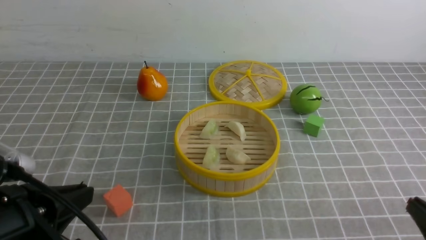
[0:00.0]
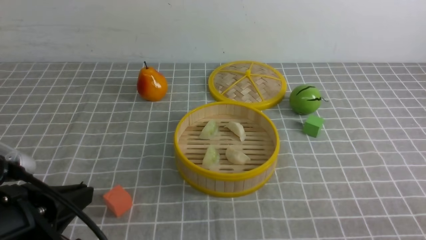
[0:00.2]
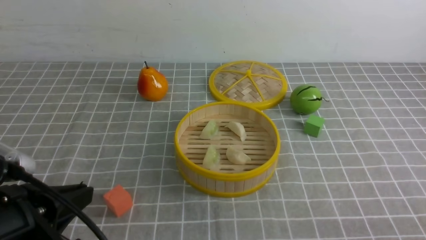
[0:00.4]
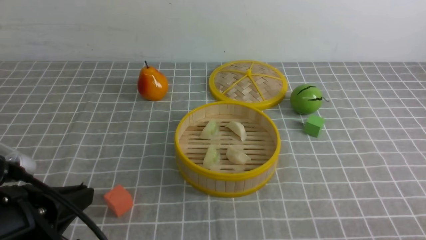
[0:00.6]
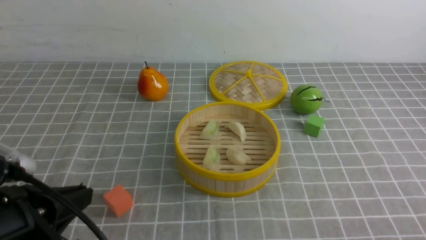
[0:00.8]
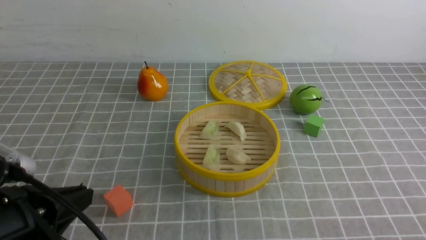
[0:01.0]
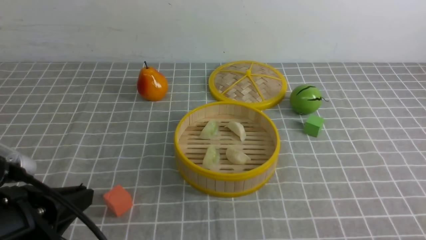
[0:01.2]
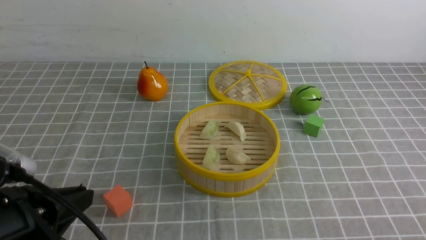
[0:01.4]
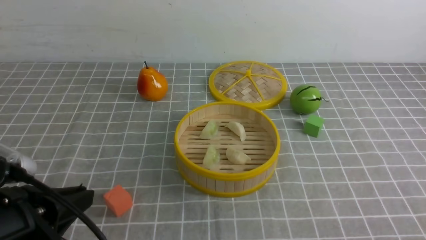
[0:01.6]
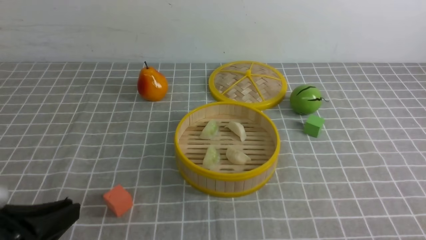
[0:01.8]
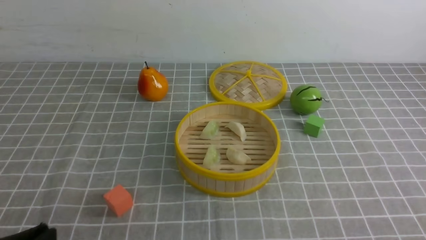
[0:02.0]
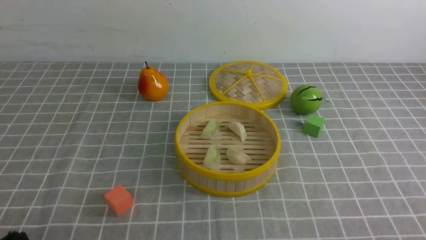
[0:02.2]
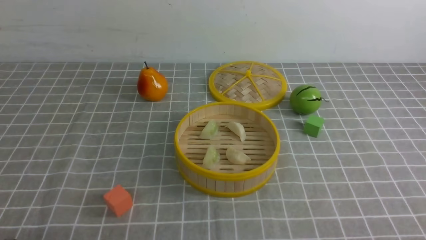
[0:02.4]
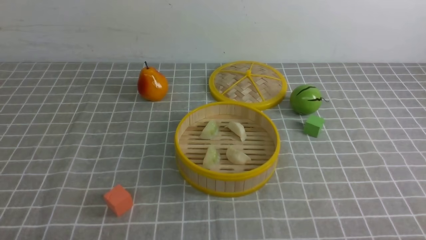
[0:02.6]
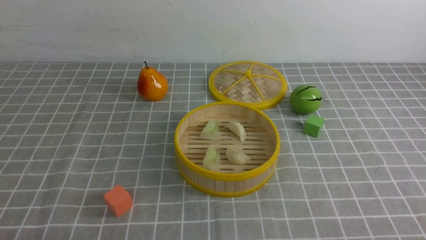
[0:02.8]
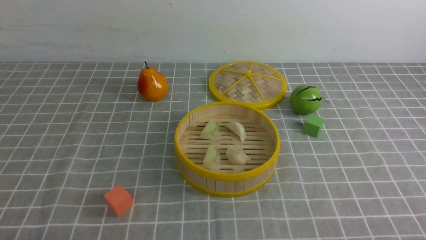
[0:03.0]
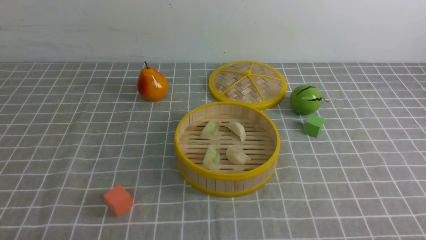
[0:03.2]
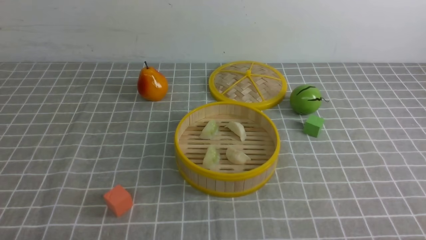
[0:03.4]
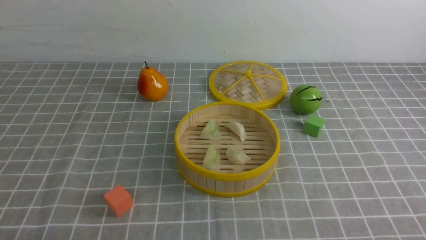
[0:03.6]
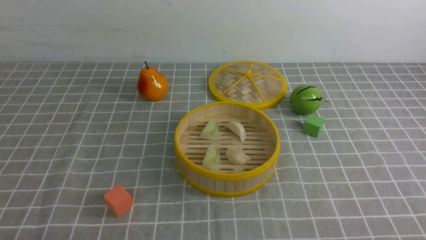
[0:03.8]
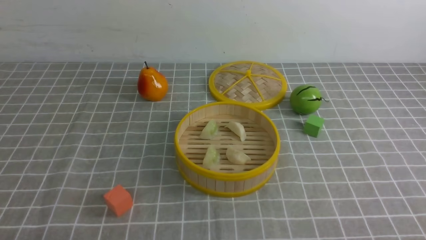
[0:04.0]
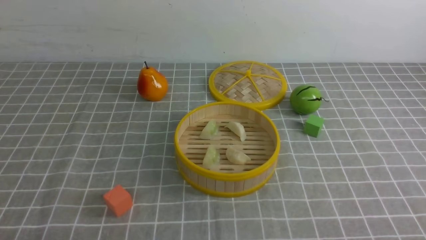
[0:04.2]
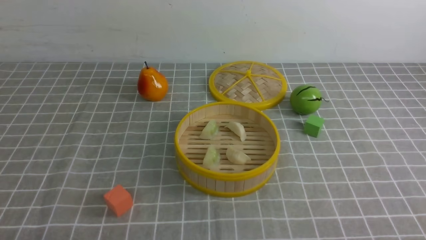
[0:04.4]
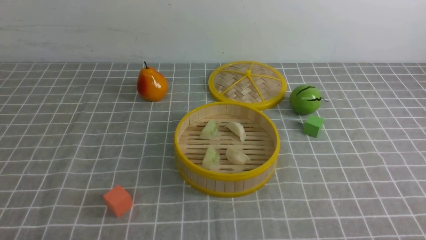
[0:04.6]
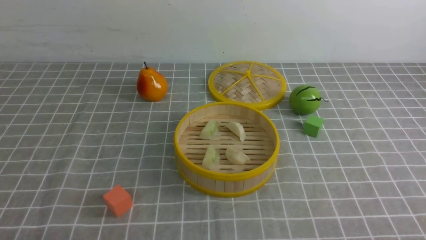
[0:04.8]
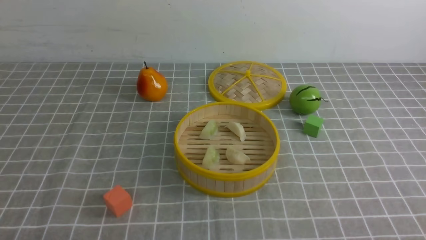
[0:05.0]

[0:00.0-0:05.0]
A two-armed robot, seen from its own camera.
Task of the whole recording: put the dumplings into the steamer on the table with the grey tablecloth.
0:01.6 to 0:03.4: The left gripper goes about 15 cm downward, backward and to the left.
0:03.4 to 0:05.0: Both grippers stay about where they are.

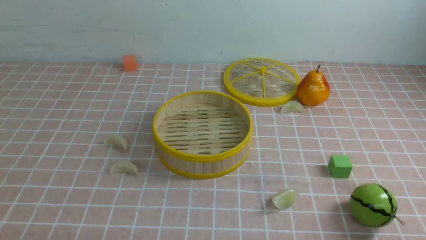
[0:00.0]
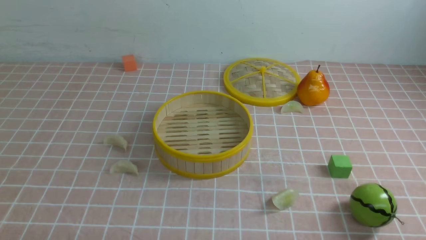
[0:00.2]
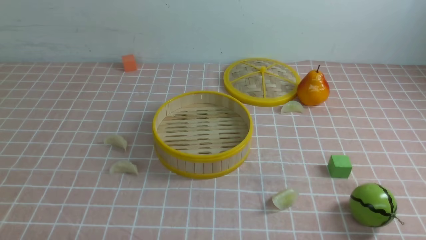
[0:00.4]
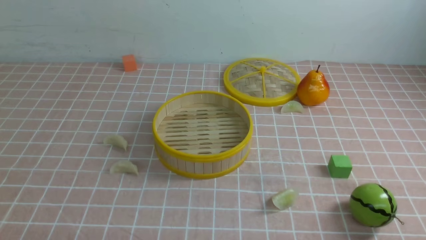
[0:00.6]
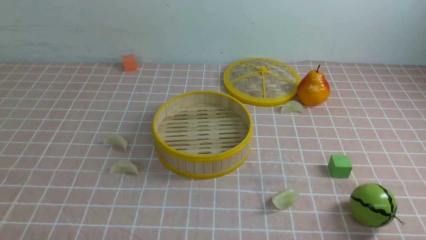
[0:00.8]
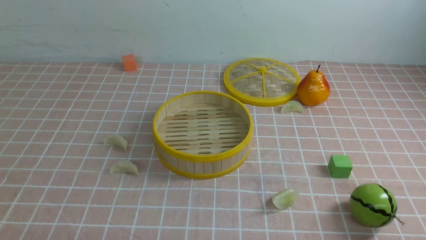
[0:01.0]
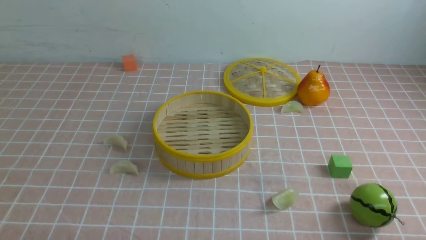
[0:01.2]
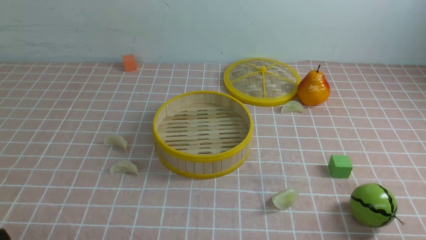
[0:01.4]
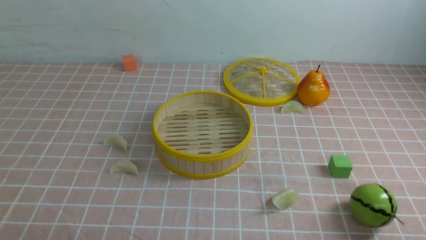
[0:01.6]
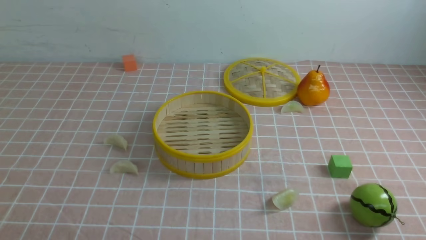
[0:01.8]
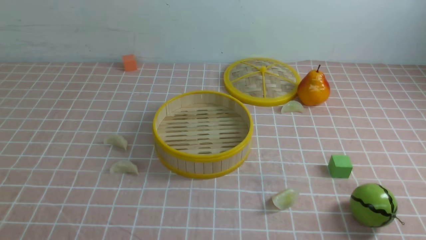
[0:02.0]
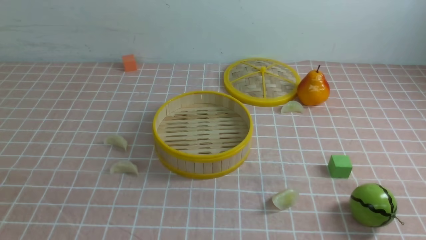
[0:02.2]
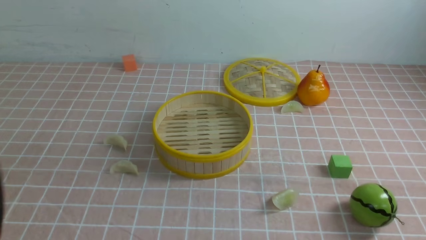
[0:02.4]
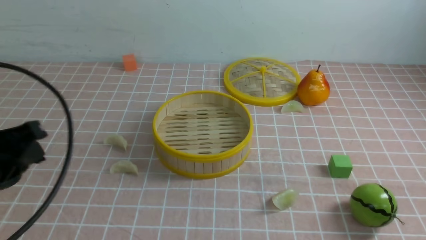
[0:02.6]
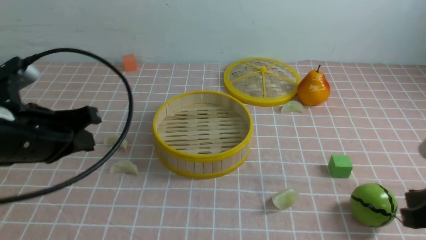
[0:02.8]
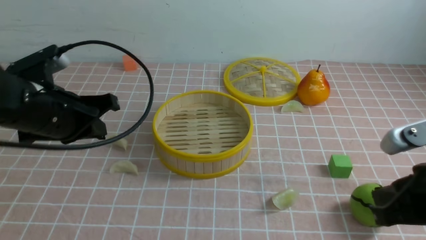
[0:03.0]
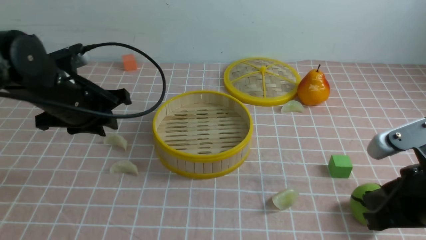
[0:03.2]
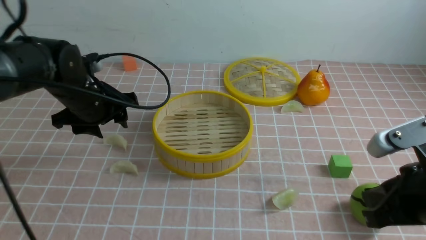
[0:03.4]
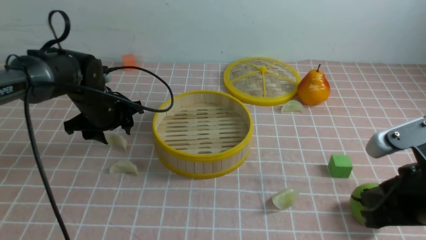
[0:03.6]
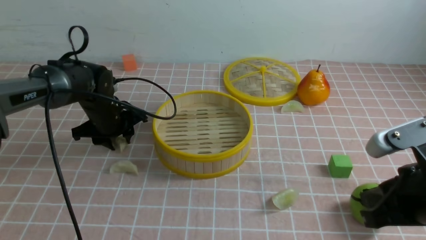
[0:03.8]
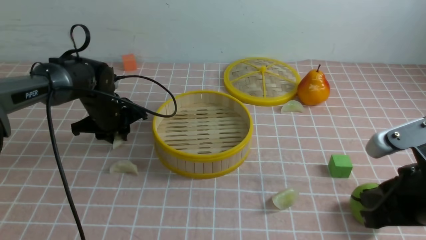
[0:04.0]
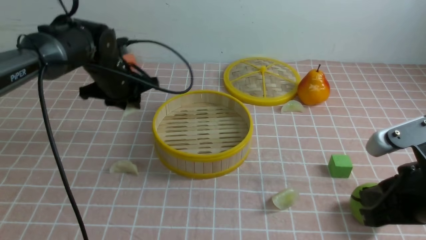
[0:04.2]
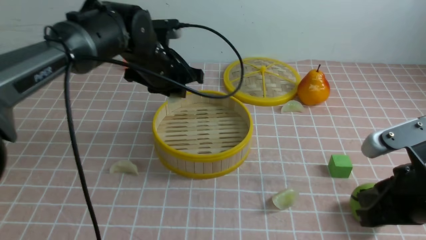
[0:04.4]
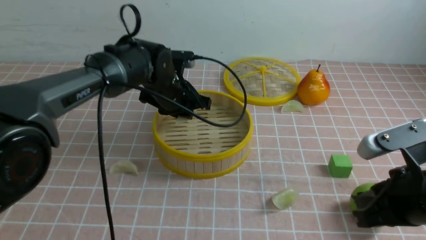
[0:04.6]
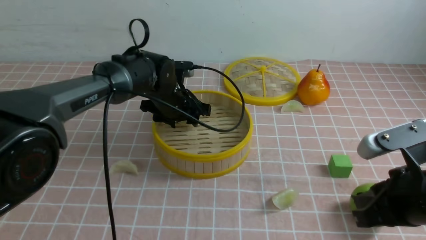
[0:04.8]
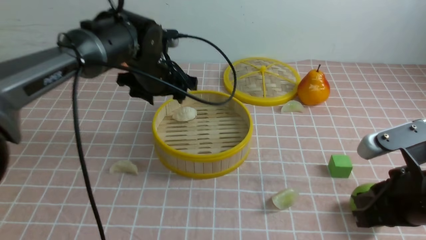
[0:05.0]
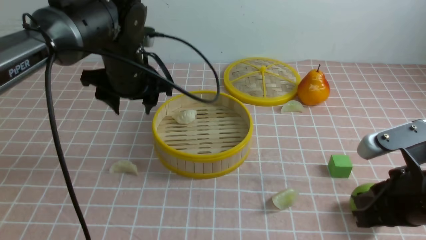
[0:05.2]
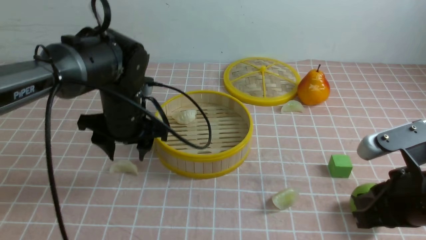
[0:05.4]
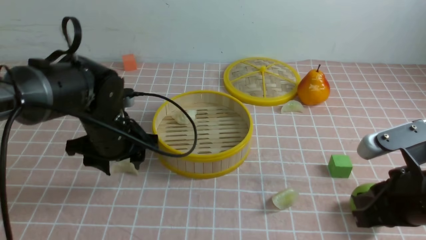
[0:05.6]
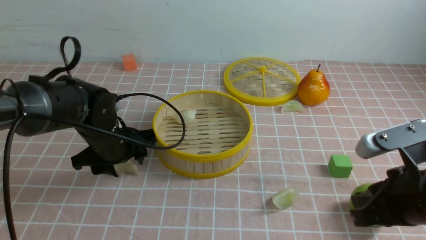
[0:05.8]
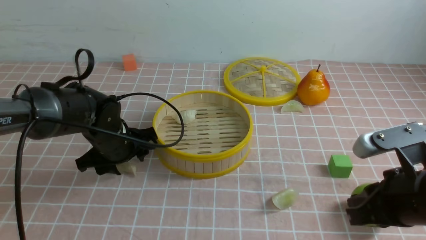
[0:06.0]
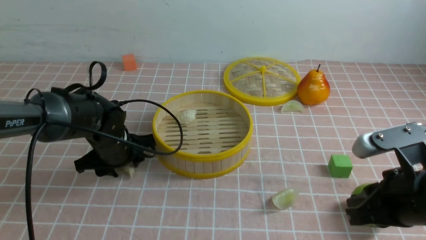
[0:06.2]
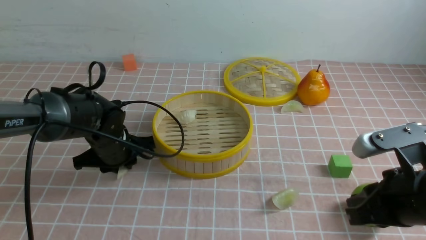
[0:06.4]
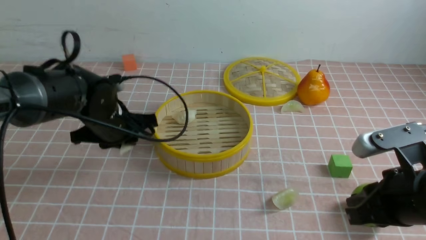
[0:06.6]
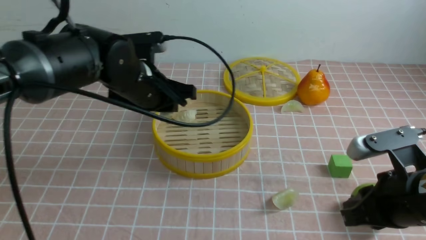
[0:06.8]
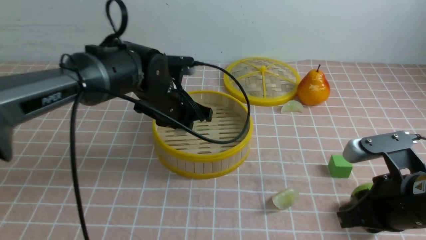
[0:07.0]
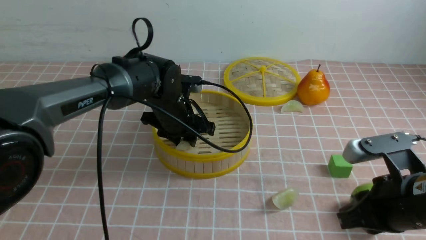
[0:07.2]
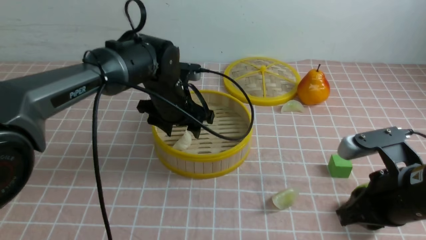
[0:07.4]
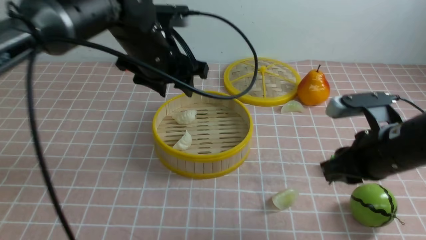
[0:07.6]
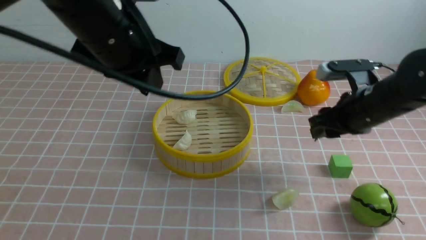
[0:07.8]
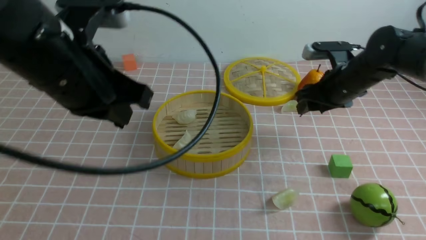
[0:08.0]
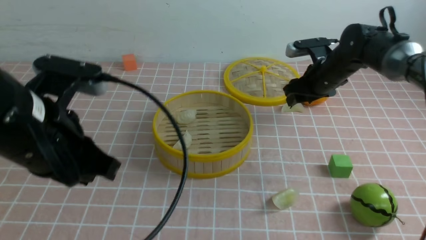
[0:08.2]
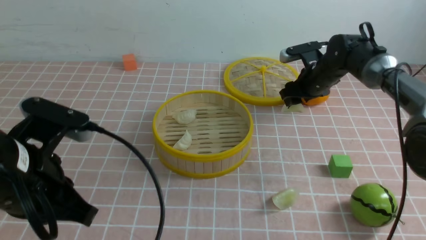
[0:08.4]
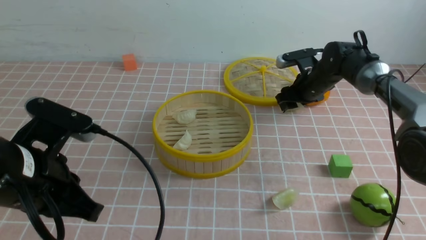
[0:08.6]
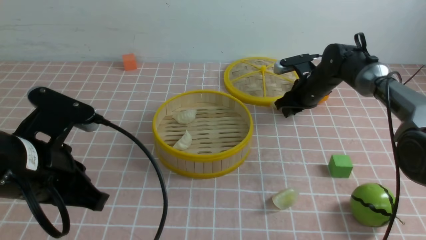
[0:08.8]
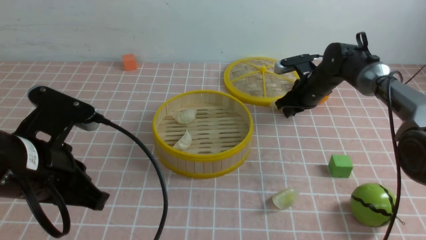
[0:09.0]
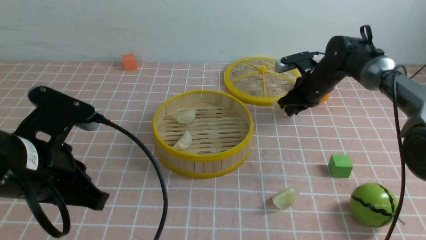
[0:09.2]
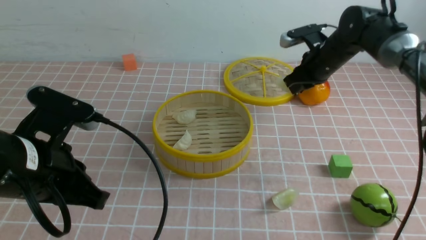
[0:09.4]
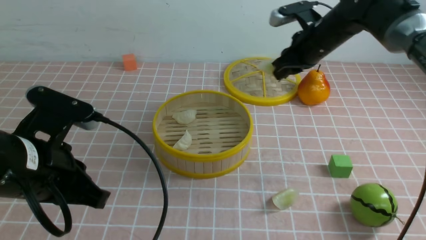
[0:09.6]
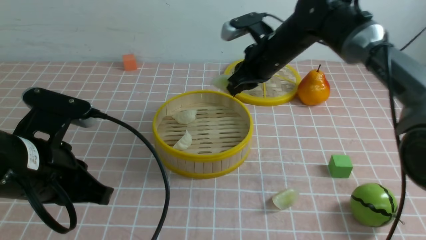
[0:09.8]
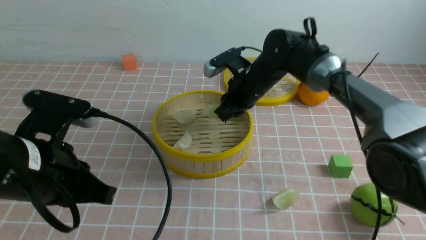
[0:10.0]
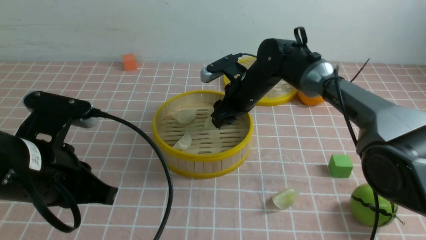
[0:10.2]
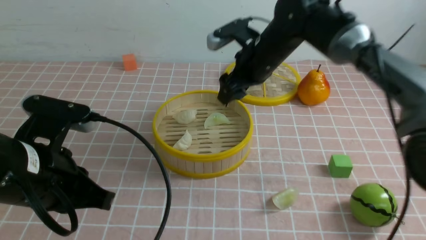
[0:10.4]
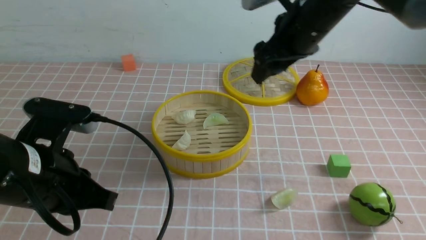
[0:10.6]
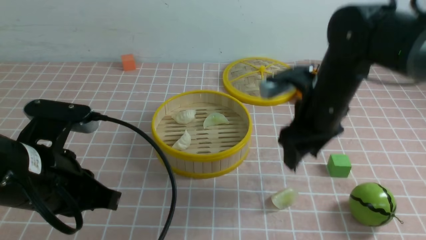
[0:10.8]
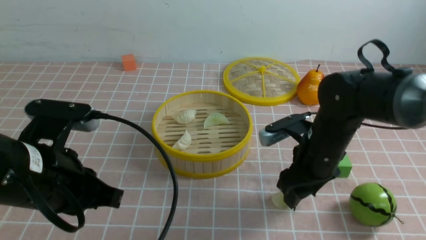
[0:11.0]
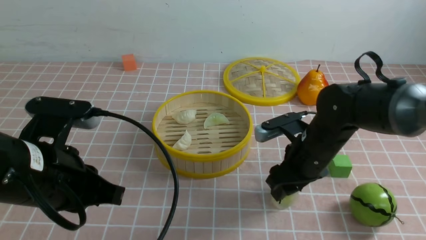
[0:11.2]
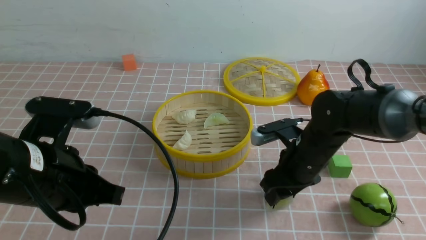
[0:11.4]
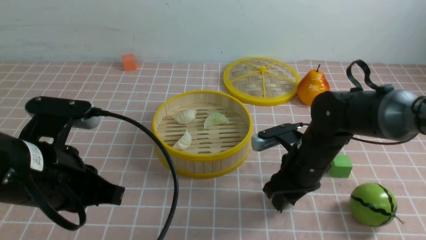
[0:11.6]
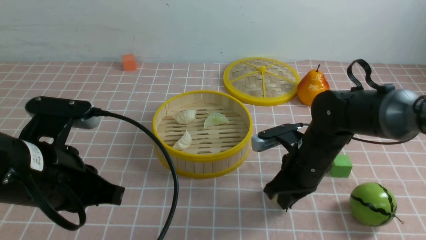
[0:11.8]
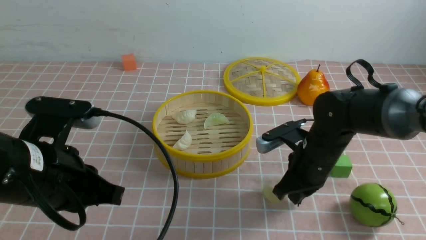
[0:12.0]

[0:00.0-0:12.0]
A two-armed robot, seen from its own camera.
Task of the whole recording: put the dumplings into the steamer on the table with the pink tablecloth.
Step, 0:00.0 to 0:04.0: use the left arm to grab a dumpling.
Step, 0:04.2 to 0:04.8: use the left arm to put the dumpling into the steamer.
Step, 0:05.0 to 0:06.4: use the left arm to grab a dumpling.
Step, 0:06.6 to 0:07.2: use the left arm to put the dumpling into the steamer.
Step, 0:07.4 to 0:09.2: use the right arm to grab a dumpling.
Step, 0:09.4 to 0:10.2: use the right arm to put the dumpling into the steamer.
0:01.6 to 0:03.0: The left gripper goes about 25 cm forward. The right gripper goes roughly 15 cm forward and to the left, and closes.
0:03.0 to 0:04.4: The left gripper heads forward and to the right, covering roughly 20 cm, and opens, then closes once more.
0:04.4 to 0:06.0: The left gripper moves backward, downward and to the left, about 15 cm, and opens up.
0:06.0 to 0:07.6: The left gripper shifts about 20 cm upward and to the right, and closes and opens again. The right gripper moves forward, approximately 10 cm.
0:07.6 to 0:09.0: The left gripper moves backward and to the left, approximately 20 cm, and closes up. Meanwhile the right gripper heads forward, covering roughly 25 cm, and opens and closes again.
0:09.0 to 0:10.4: The right gripper travels upward, to the left and backward by approximately 20 cm, and opens its fingers.
0:10.4 to 0:12.0: The right gripper heads downward, backward and to the right, covering about 15 cm, and closes.
